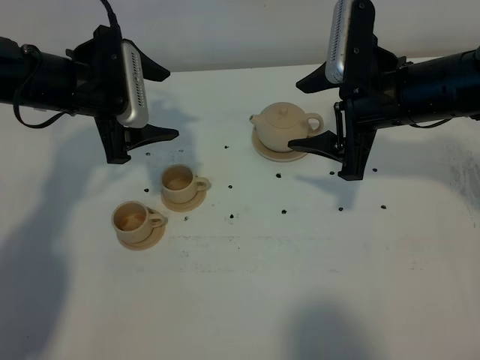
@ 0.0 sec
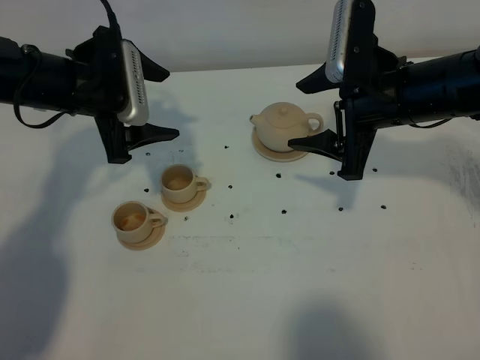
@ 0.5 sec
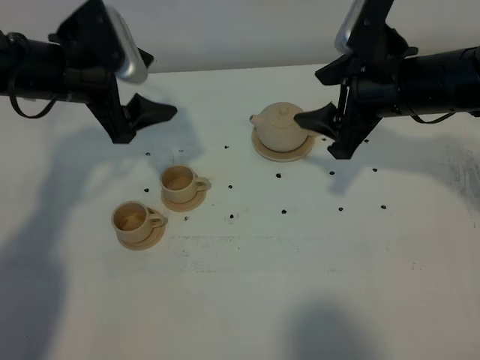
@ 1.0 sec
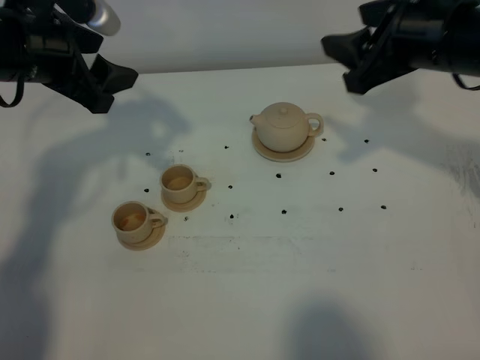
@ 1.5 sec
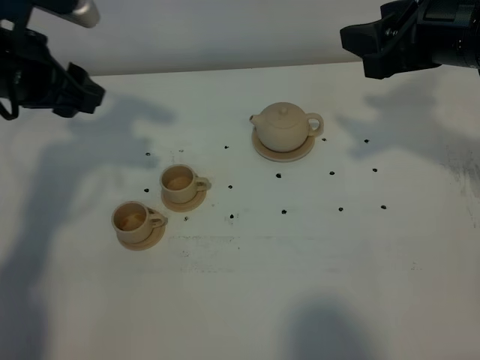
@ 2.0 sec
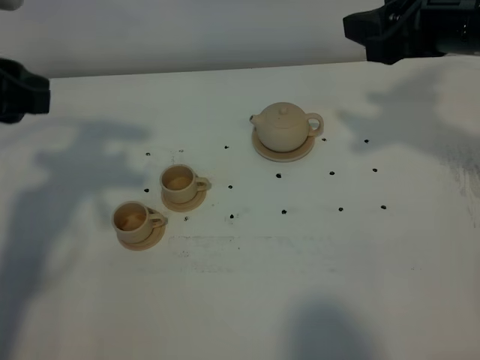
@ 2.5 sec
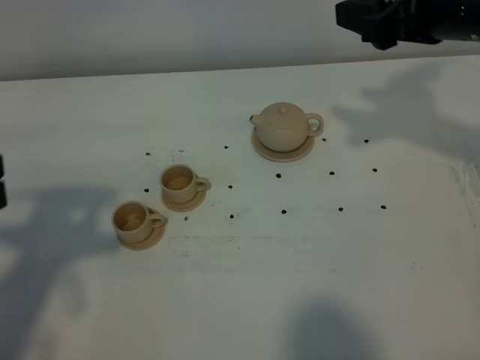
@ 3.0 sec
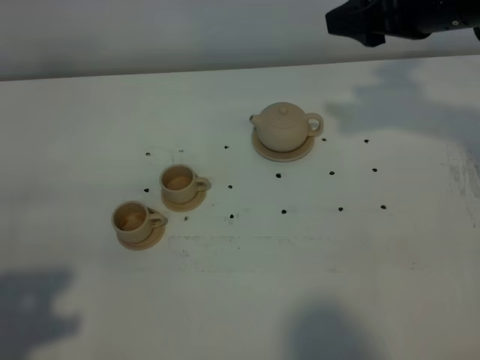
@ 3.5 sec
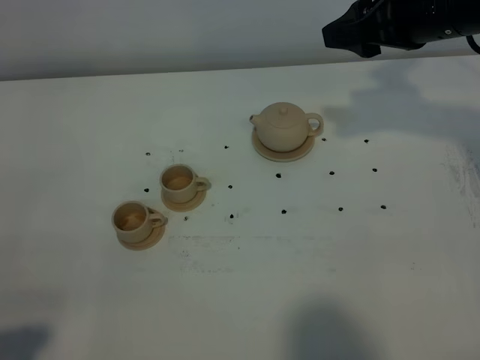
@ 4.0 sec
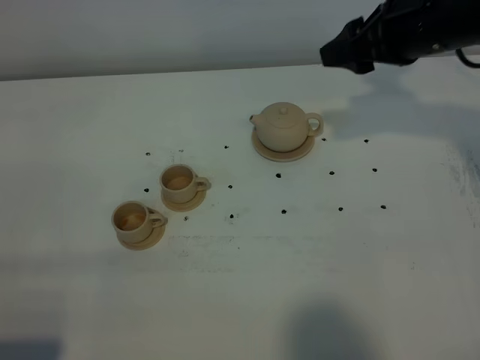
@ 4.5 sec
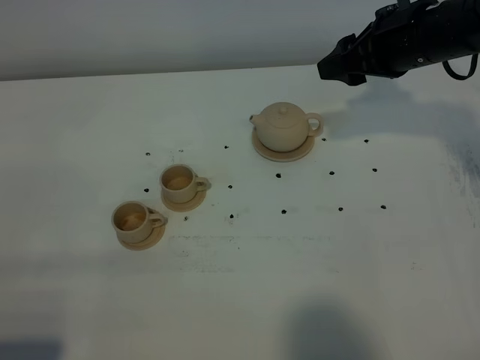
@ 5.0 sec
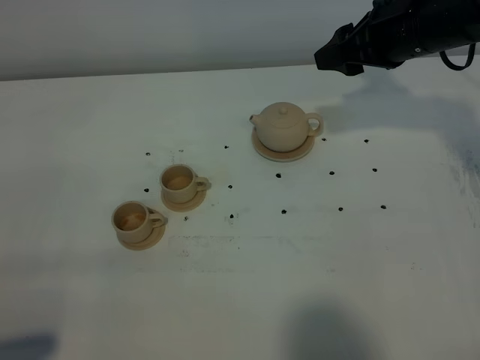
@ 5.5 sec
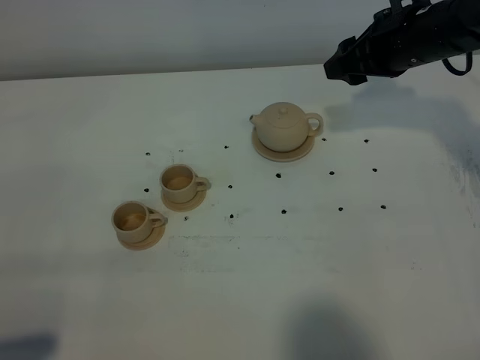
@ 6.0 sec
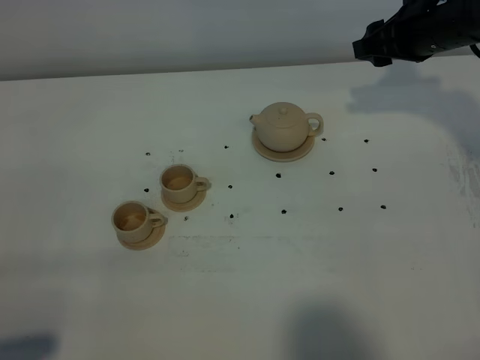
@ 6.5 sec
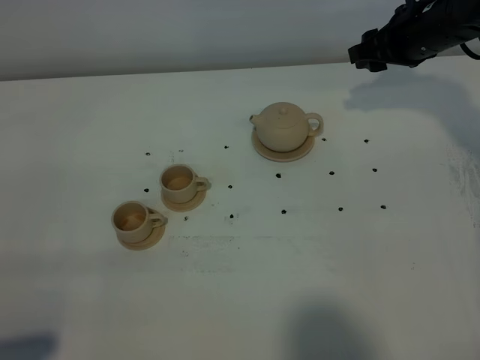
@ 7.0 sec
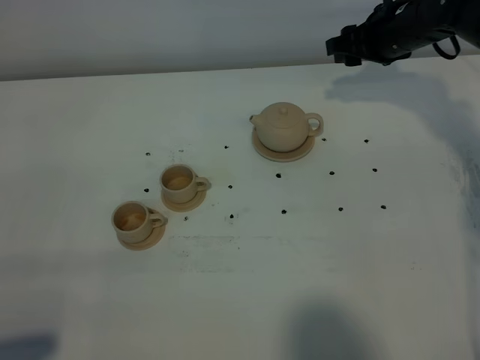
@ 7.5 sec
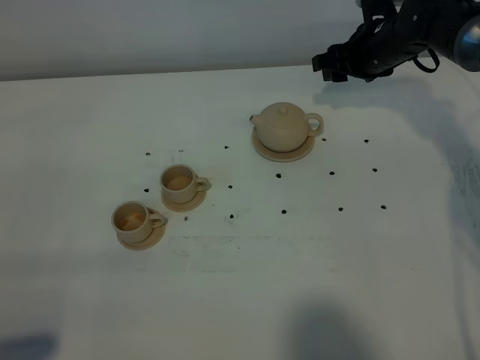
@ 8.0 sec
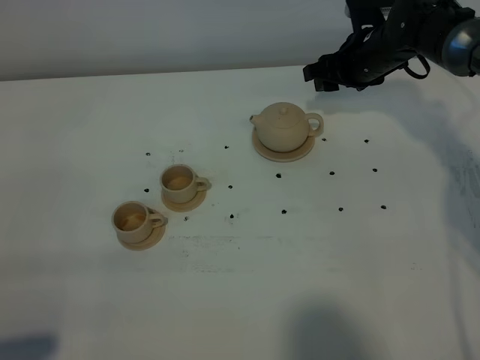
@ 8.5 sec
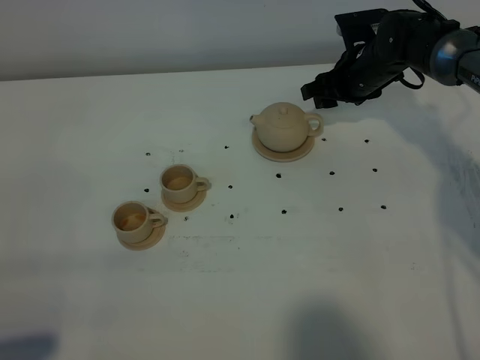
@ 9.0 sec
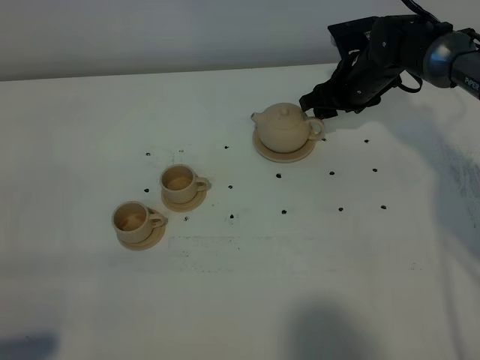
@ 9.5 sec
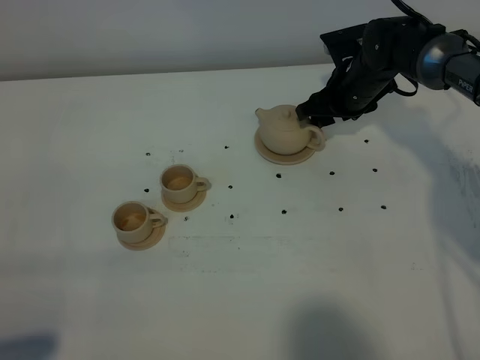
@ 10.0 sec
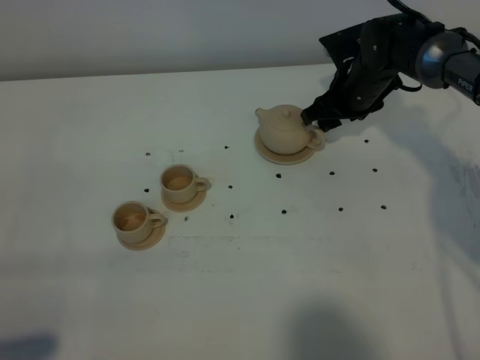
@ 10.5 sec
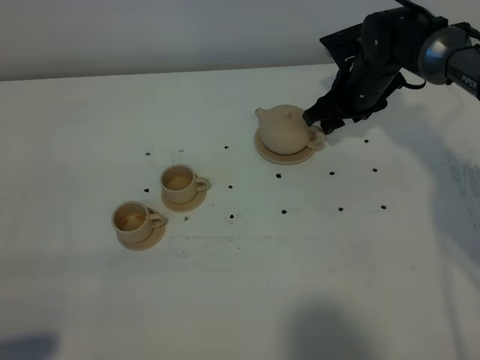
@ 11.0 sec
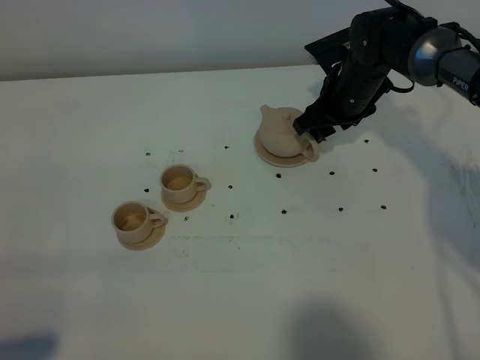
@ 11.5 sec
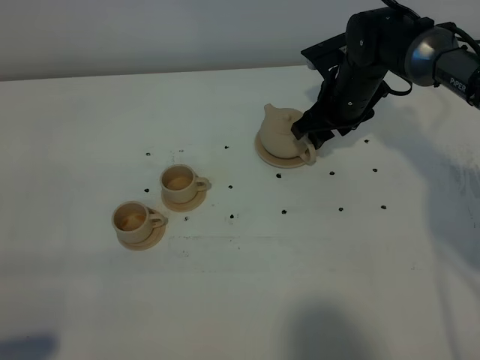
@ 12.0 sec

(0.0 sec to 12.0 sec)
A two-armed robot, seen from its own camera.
Task of the whole recording: grasp the brown teapot and pour the tea into the two brown teacups one by one, put the brown teapot back in its original place.
0.0 sec - 2.0 sec: The two grippers go roughly 5 cm upward. The left gripper closes up.
2.0 sec - 4.0 sec: The left gripper is displaced backward by some 35 cm, and closes up.
4.0 sec - 6.0 sec: The right gripper is displaced downward and forward by approximately 10 cm.
6.0 sec - 8.0 sec: The right gripper moves forward and downward, some 10 cm.
8.0 sec - 10.0 sec: The right gripper changes place by approximately 5 cm.
10.0 sec - 12.0 sec: There are only small adjustments of the grippers.

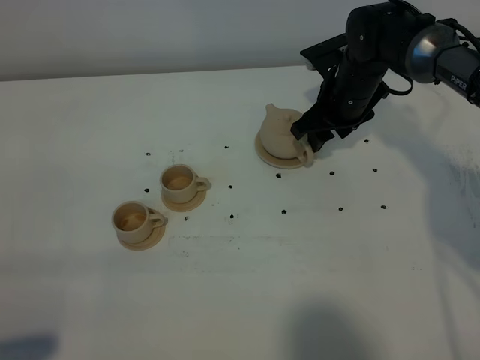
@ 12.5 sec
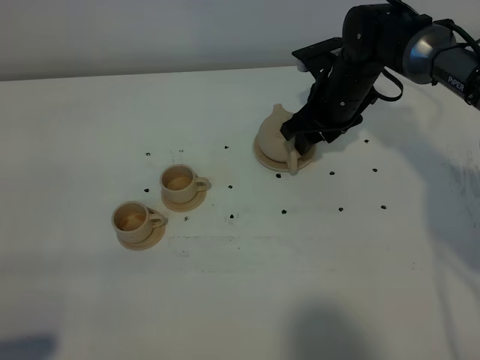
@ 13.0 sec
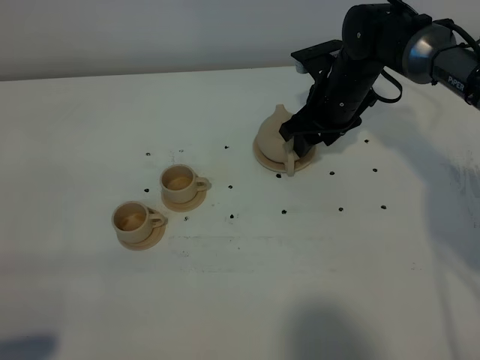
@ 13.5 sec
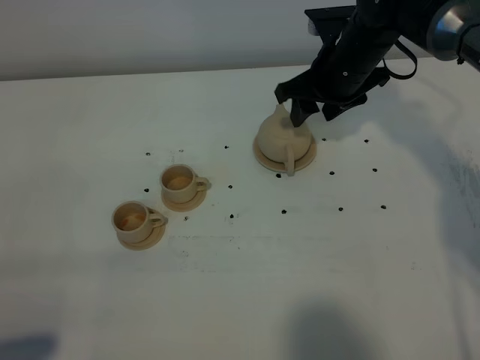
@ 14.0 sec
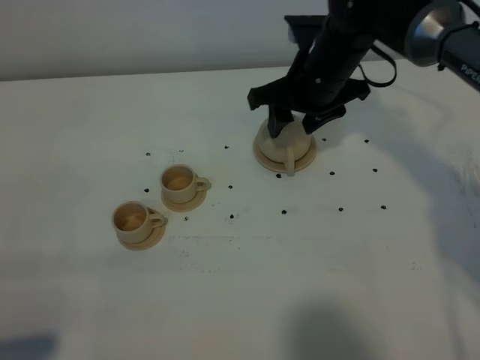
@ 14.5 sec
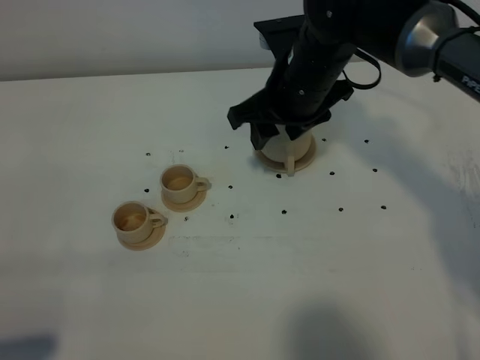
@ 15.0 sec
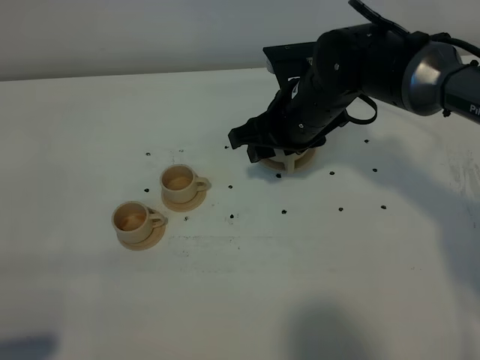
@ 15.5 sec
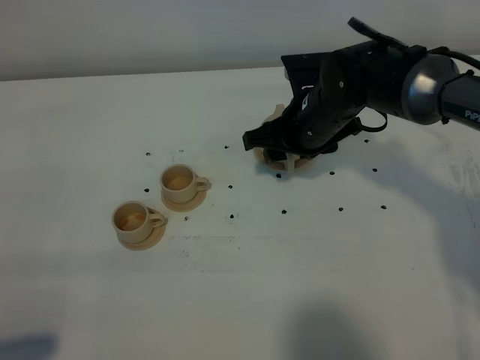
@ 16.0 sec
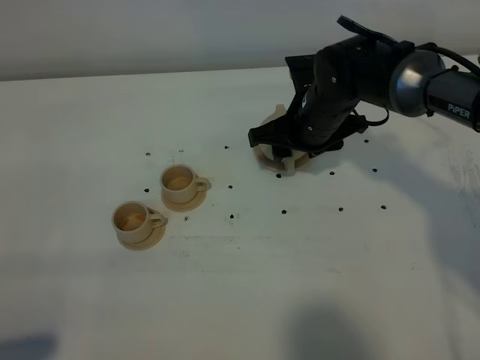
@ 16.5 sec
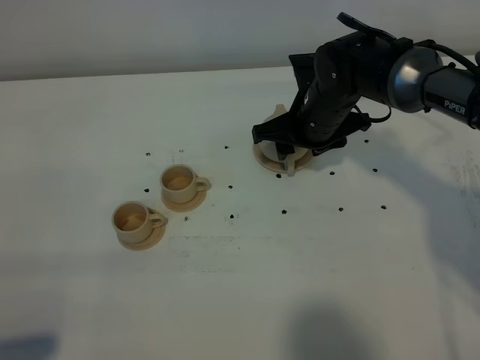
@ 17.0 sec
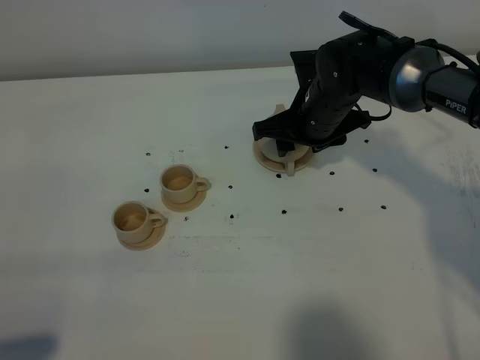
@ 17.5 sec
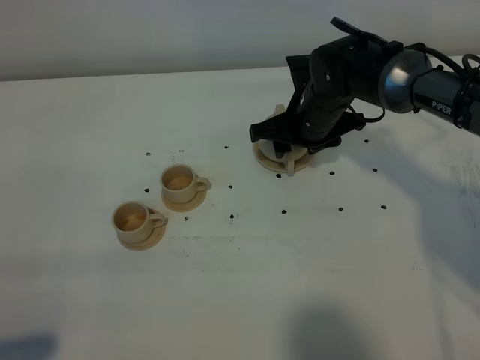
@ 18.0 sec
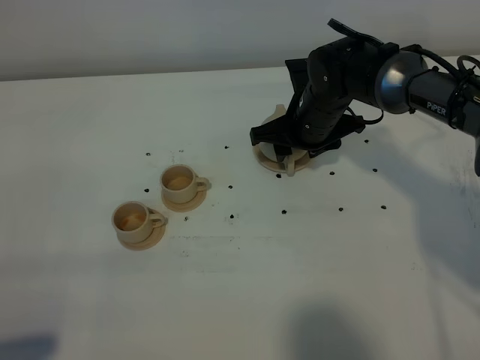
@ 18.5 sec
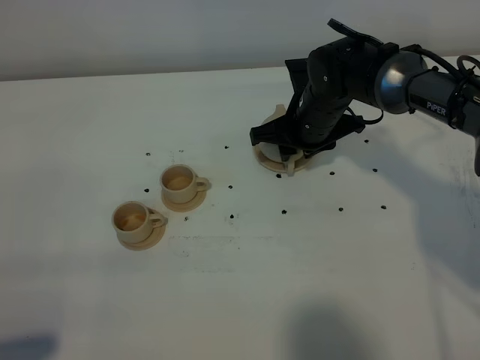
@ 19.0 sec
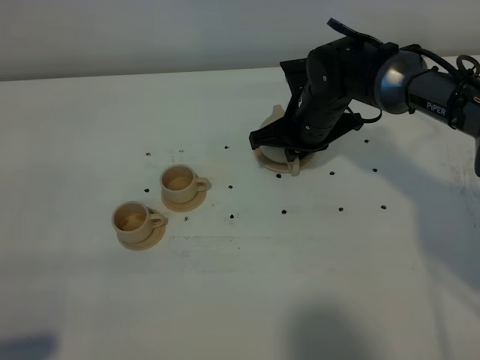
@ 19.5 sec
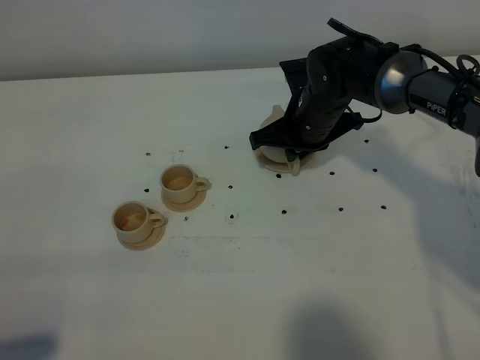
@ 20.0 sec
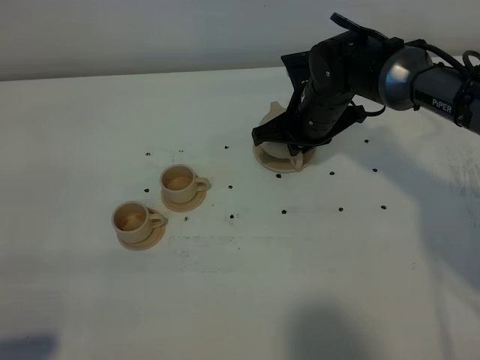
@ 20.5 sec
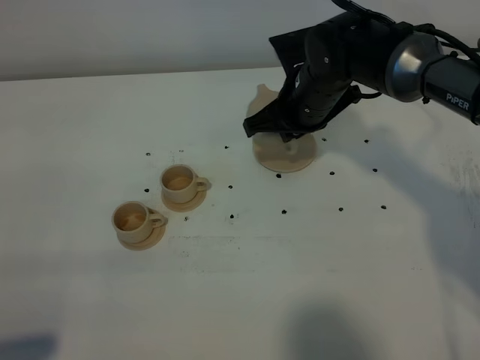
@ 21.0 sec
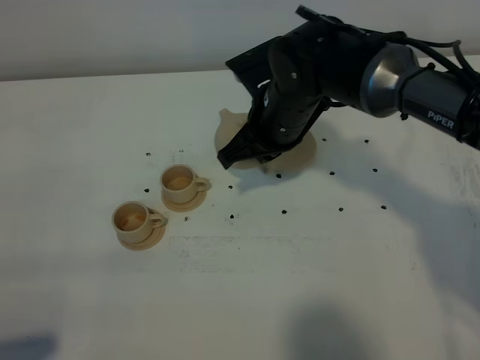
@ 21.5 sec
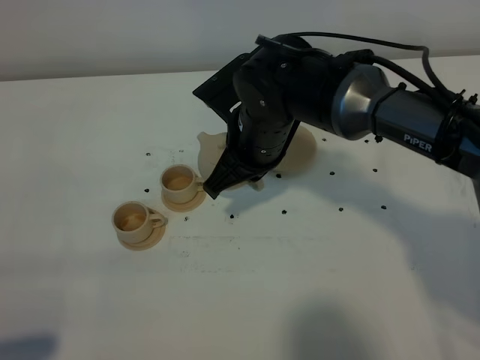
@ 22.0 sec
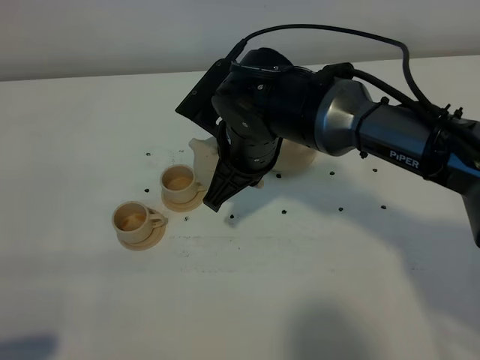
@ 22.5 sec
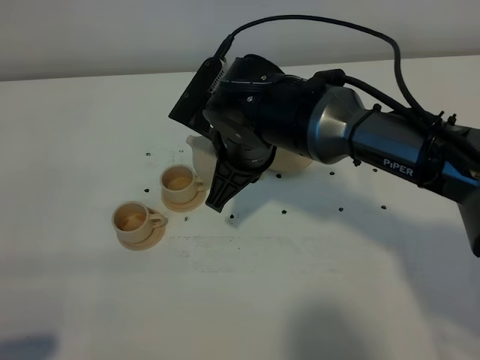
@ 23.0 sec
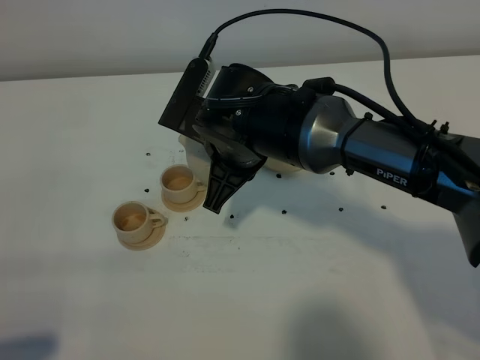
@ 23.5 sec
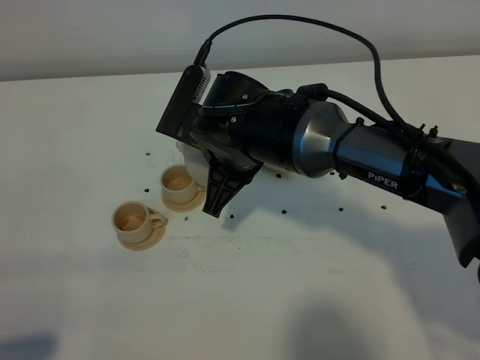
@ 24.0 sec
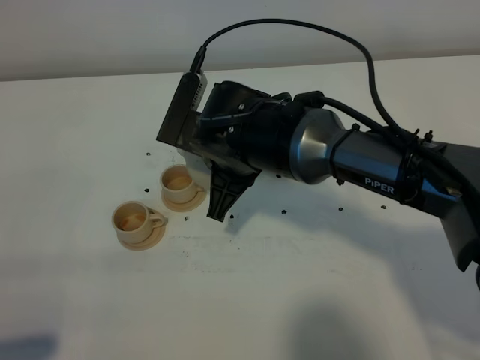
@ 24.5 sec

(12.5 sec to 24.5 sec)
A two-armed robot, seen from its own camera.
Task of the whole recording: grasp the brown teapot and pour the tea into the two brown teacups one by one, put the brown teapot back in its original place.
Step, 12.5 sec - 20.0 sec: Pick up the teapot with the right gripper.
12.5 sec - 14.5 sec: The right gripper heads upward, covering roughly 5 cm.
14.5 sec - 16.5 sec: The right gripper is displaced downward by some 5 cm.
16.5 sec - 18.5 sec: The grippers make only small movements.
18.5 sec - 20.5 sec: The right gripper closes.
20.5 sec - 22.5 sec: The right gripper is displaced to the left, backward and upward by about 15 cm.
22.5 sec - 24.5 sec: The grippers stay close to where they were, moving slightly.

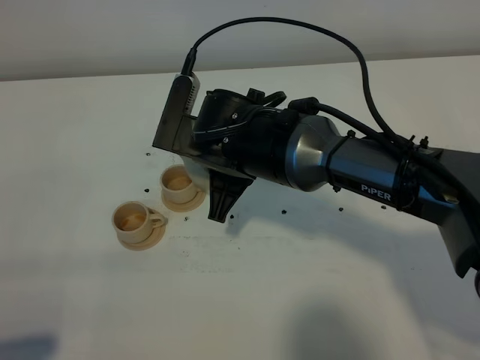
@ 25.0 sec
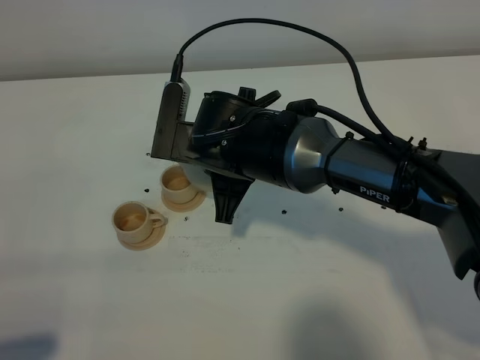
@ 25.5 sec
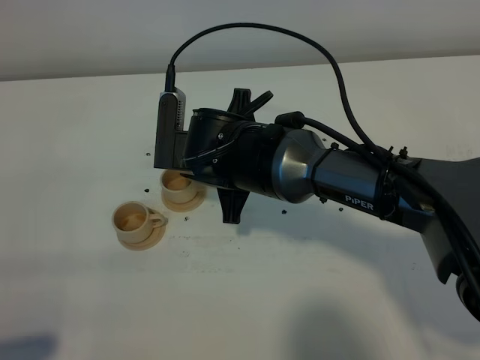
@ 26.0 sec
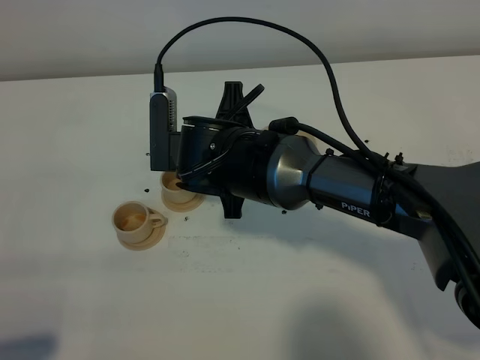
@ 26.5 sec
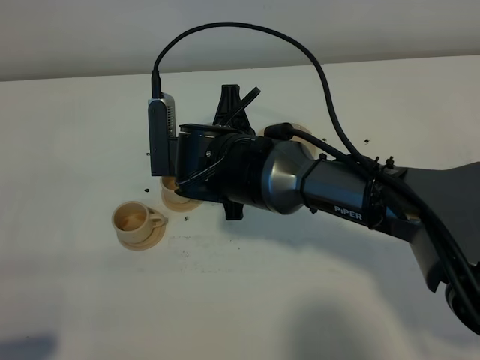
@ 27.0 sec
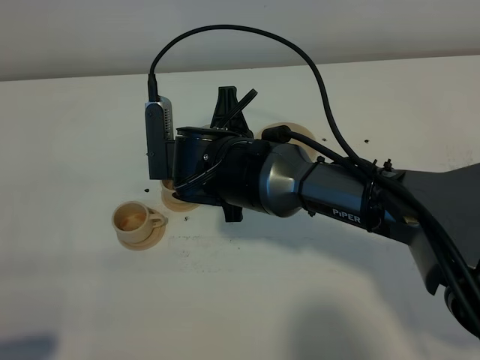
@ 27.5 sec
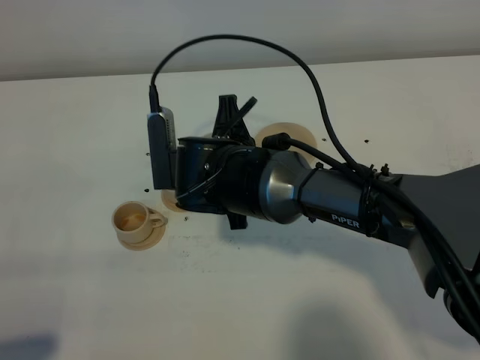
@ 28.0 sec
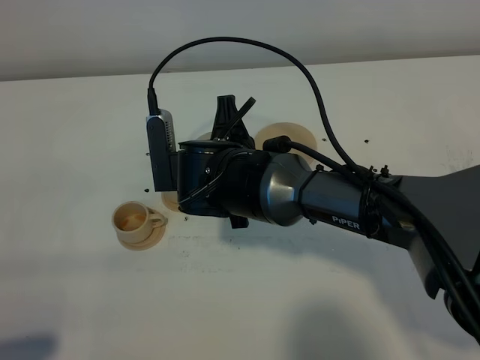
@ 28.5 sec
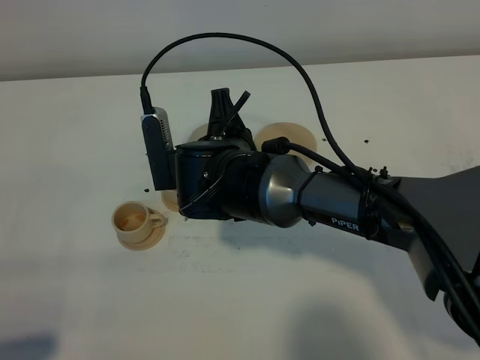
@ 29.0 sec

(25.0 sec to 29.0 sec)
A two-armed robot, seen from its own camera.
Task of the whole recording: grasp the brown teapot and pour the tea into the two brown teacups one by one, put the brown teapot back in its original place.
27.0 sec - 29.0 sec: The grippers move only a little.
